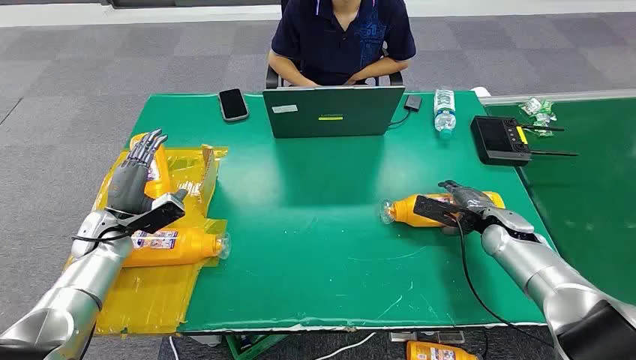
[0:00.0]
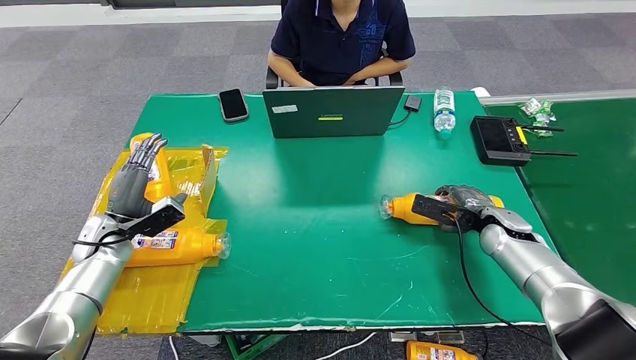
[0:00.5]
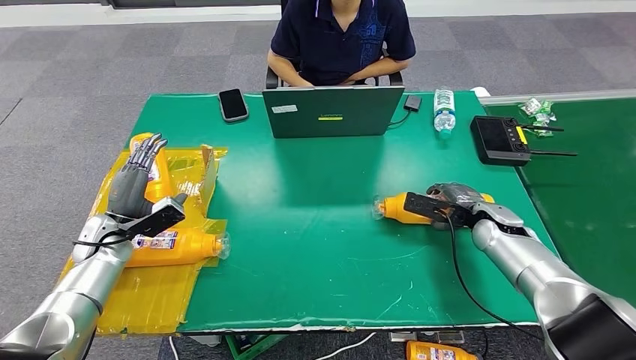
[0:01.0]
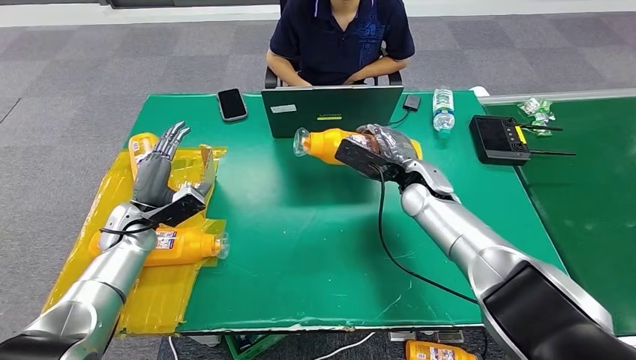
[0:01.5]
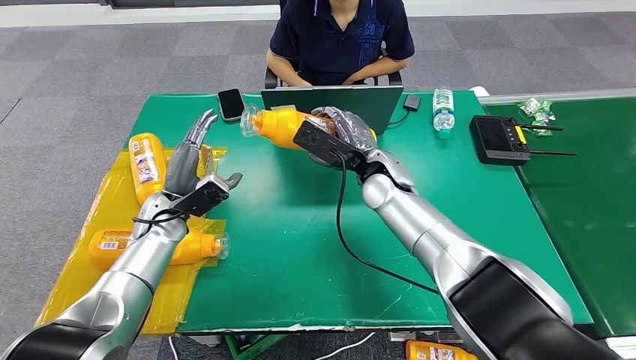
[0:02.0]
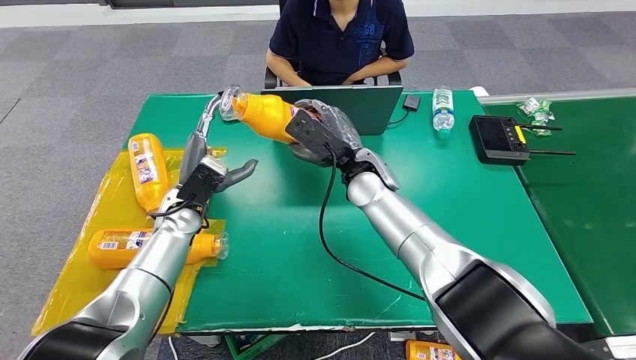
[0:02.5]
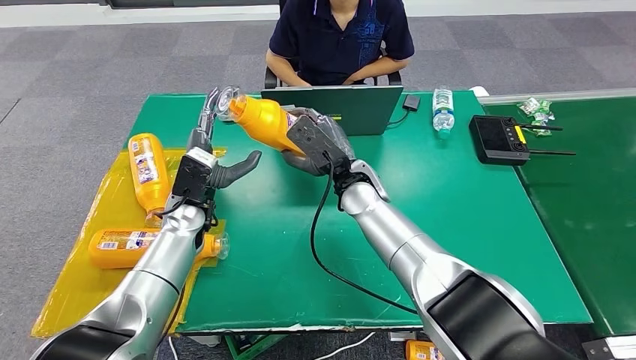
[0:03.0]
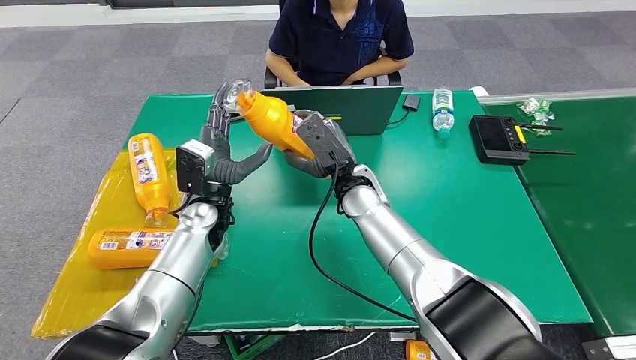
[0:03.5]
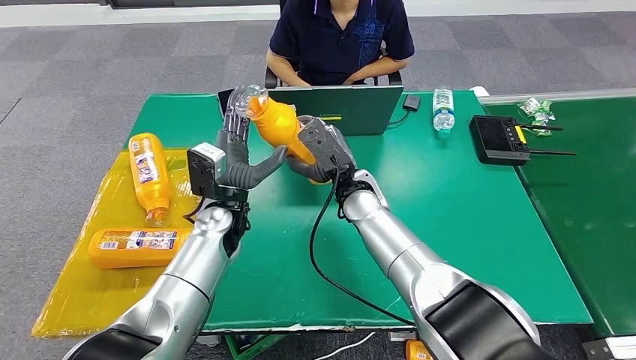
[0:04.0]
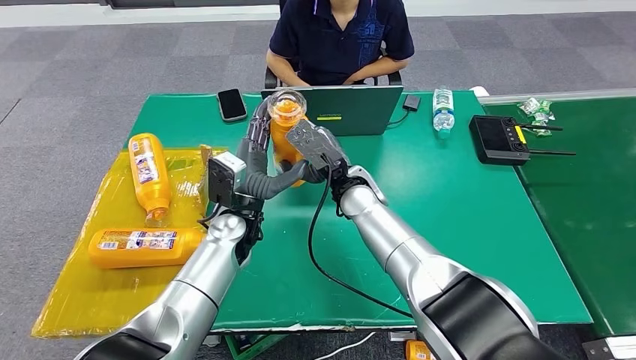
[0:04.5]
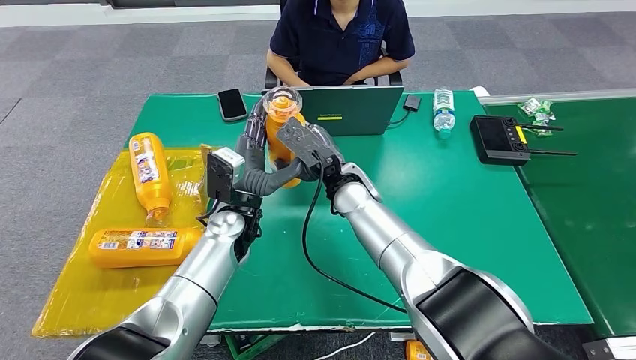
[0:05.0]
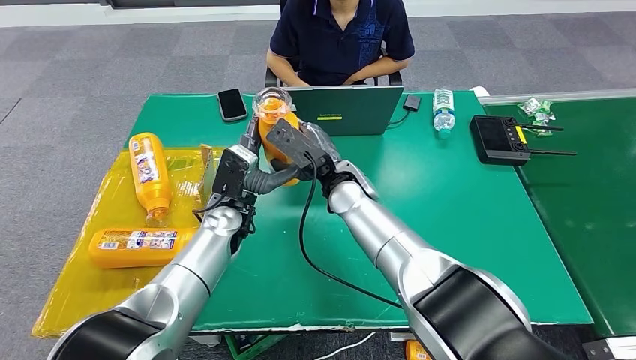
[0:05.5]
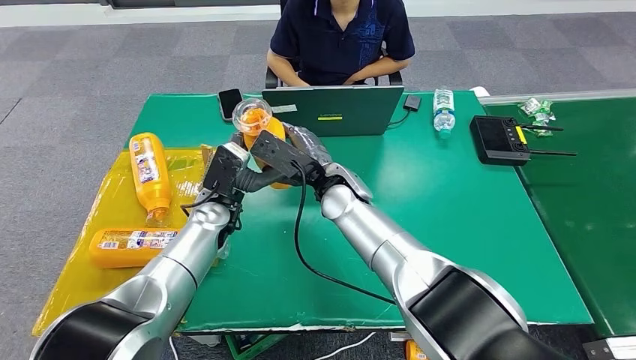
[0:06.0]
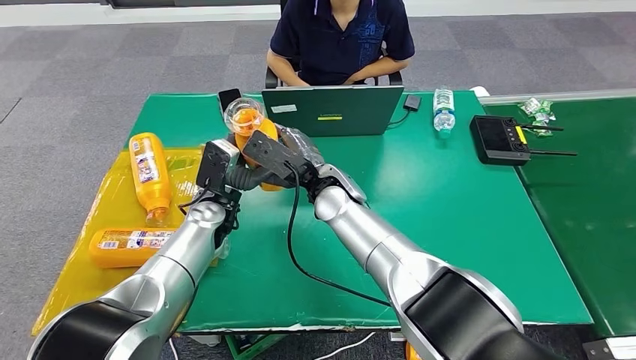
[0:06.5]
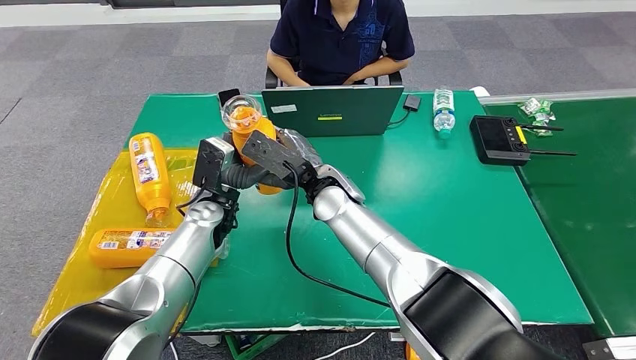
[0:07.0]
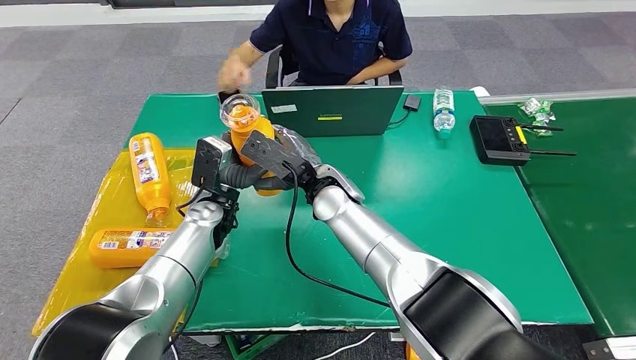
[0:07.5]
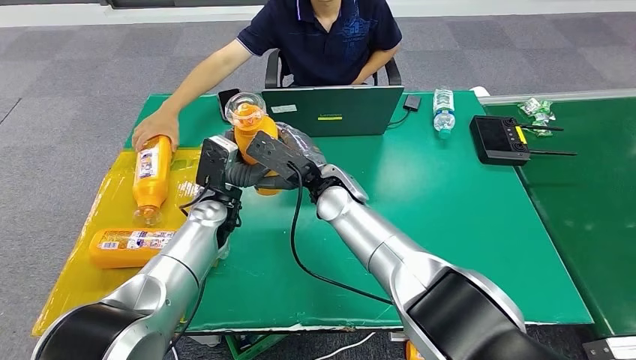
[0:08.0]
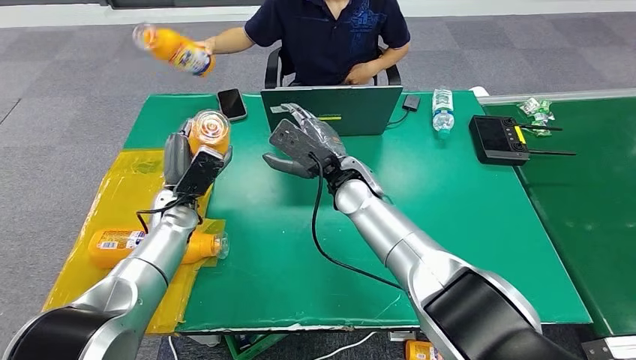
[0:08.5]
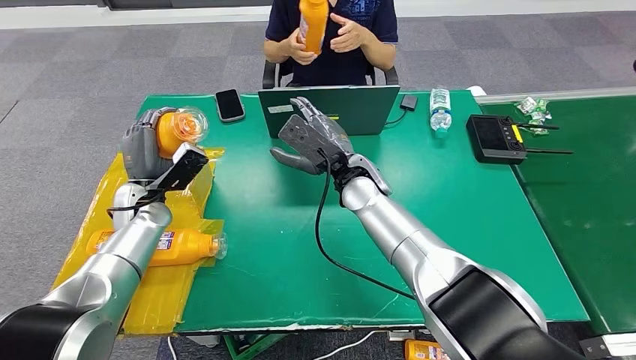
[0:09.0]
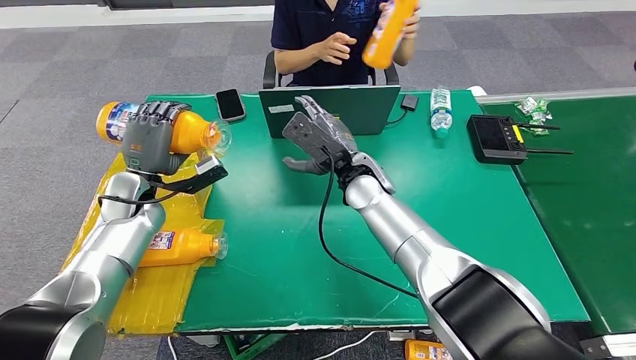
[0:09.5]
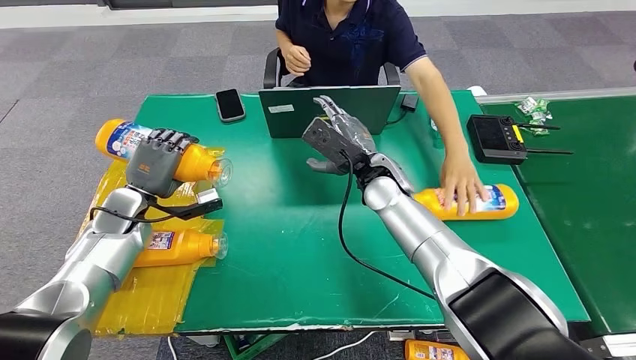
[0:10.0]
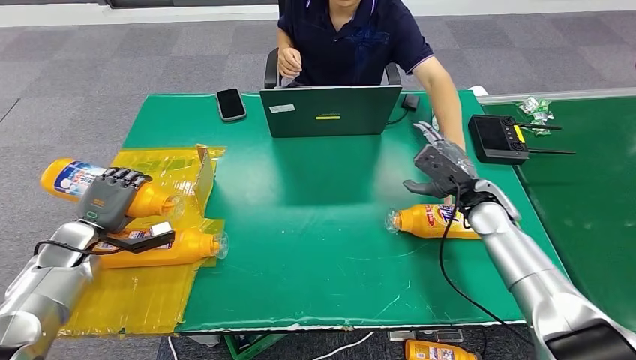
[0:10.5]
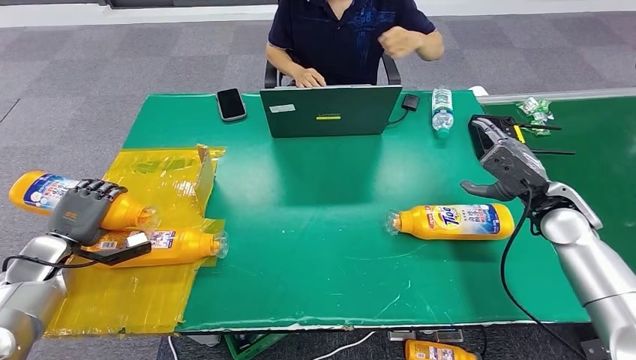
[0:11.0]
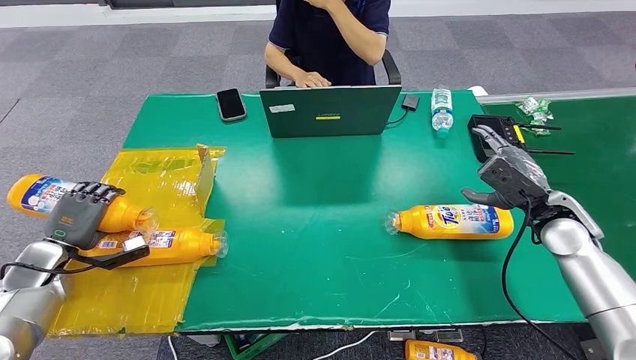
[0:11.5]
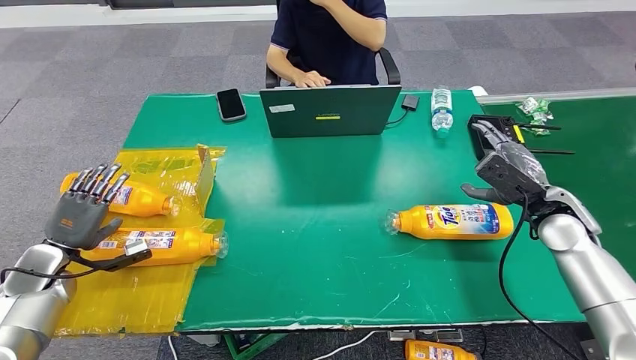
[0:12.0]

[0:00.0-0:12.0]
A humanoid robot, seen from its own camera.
Step, 0:00.0 to 0:01.5: Pick up the bottle from the table.
Step, 0:02.0 to 0:12.0: Turn the bottle to the front side.
0:04.0 to 0:08.0: The hands make only small movements.
